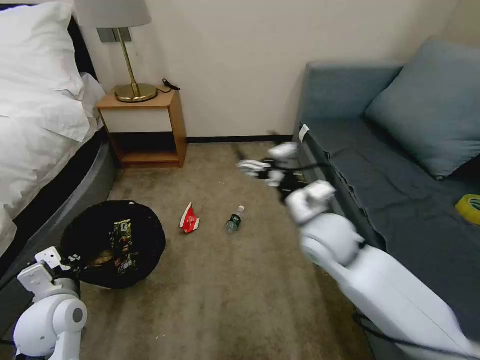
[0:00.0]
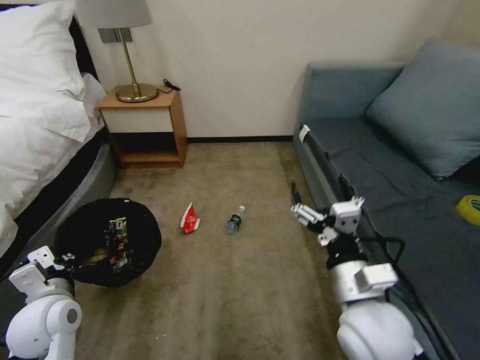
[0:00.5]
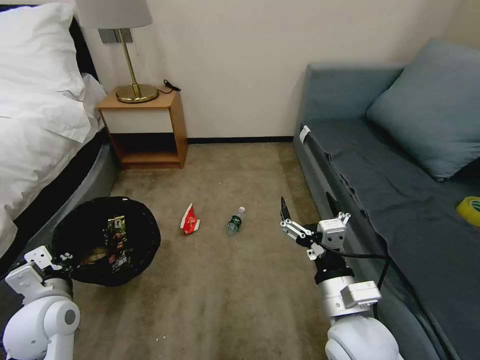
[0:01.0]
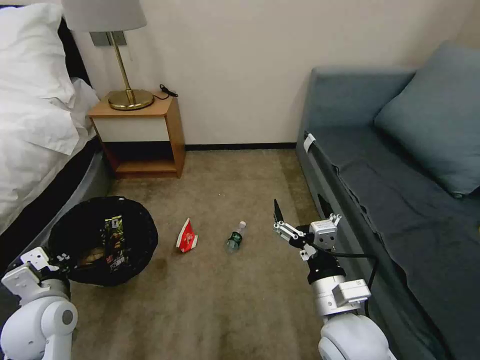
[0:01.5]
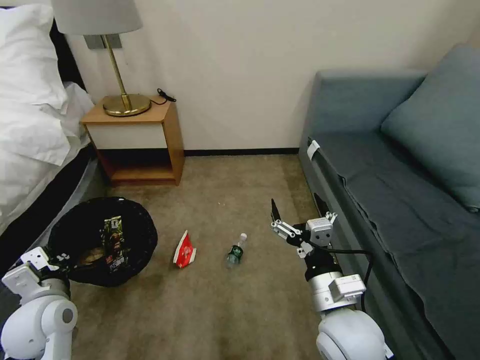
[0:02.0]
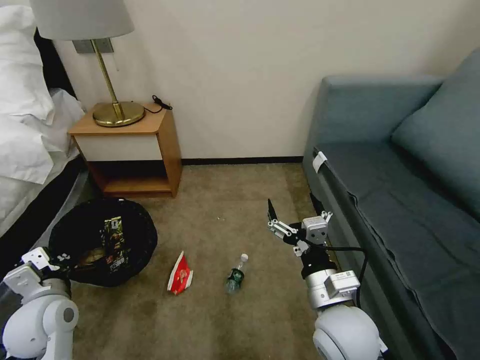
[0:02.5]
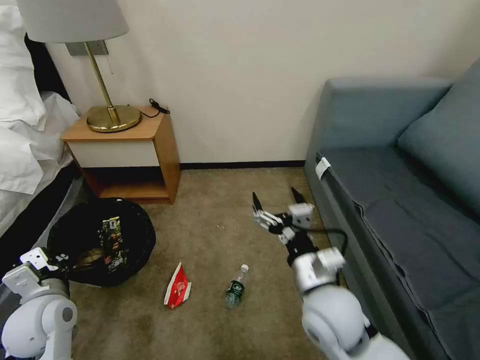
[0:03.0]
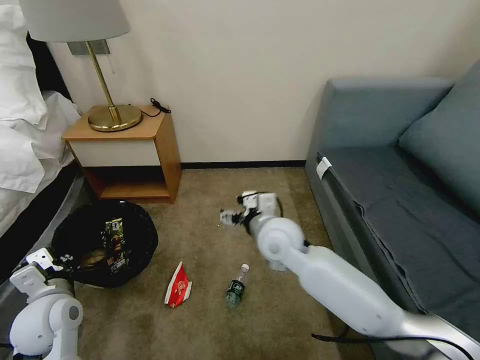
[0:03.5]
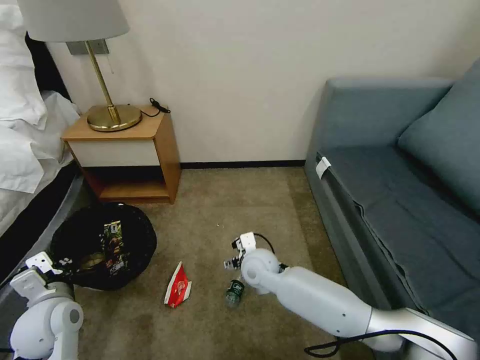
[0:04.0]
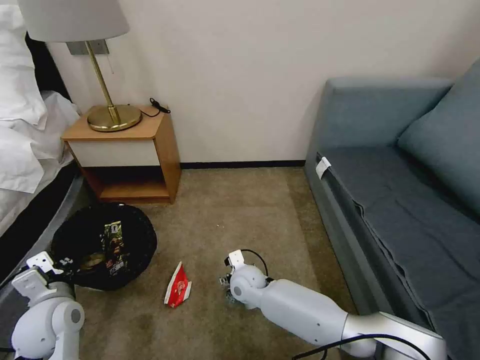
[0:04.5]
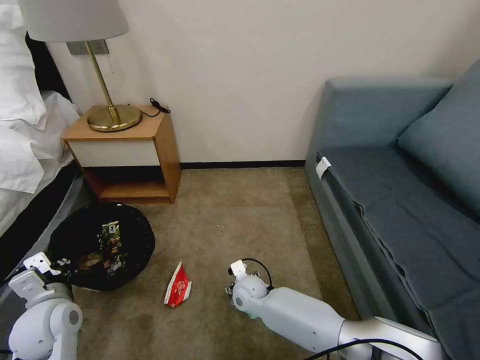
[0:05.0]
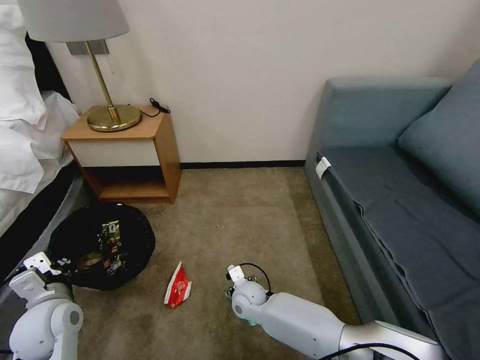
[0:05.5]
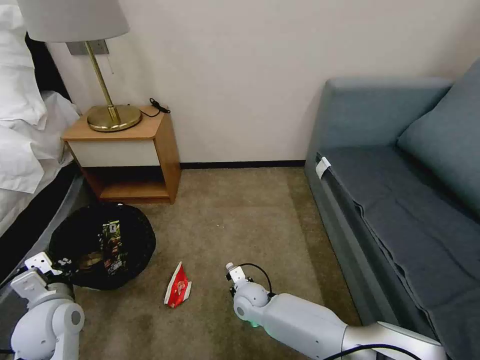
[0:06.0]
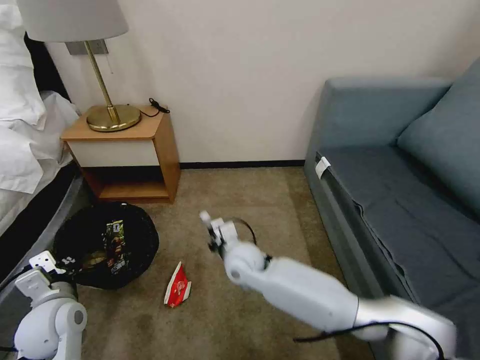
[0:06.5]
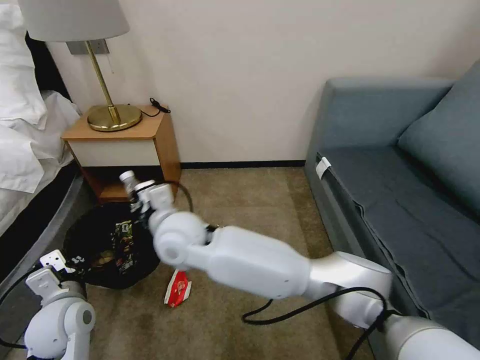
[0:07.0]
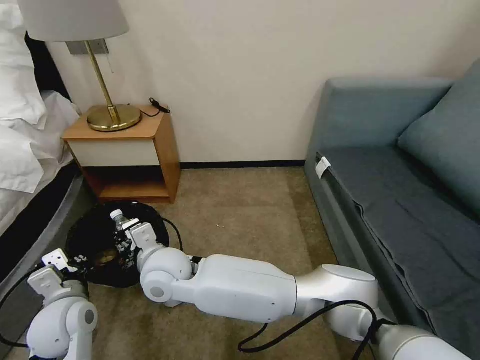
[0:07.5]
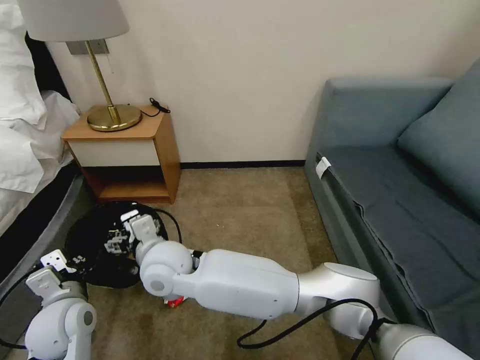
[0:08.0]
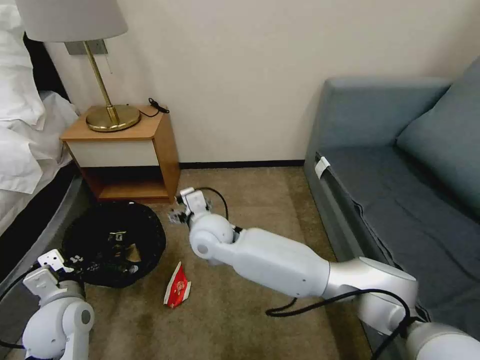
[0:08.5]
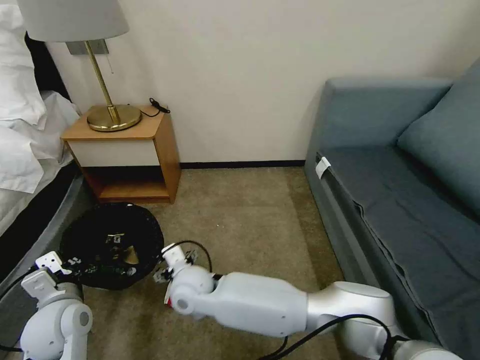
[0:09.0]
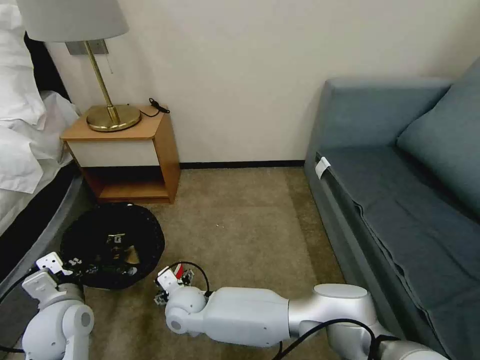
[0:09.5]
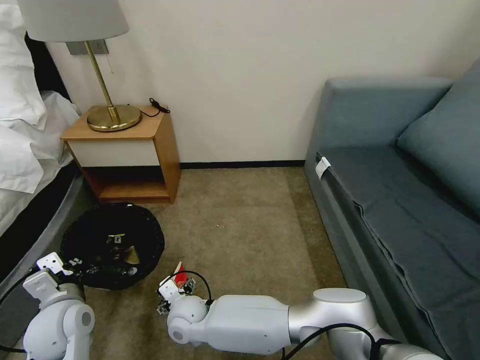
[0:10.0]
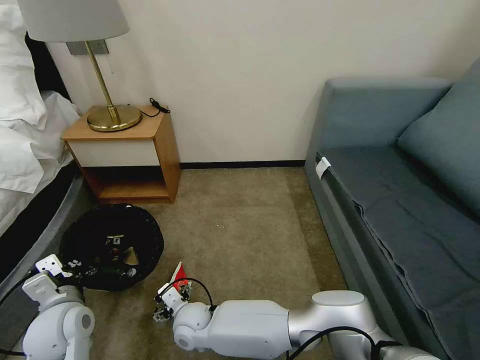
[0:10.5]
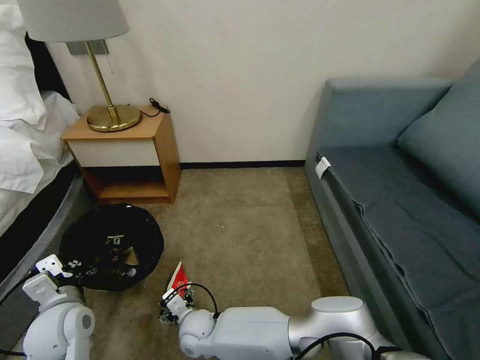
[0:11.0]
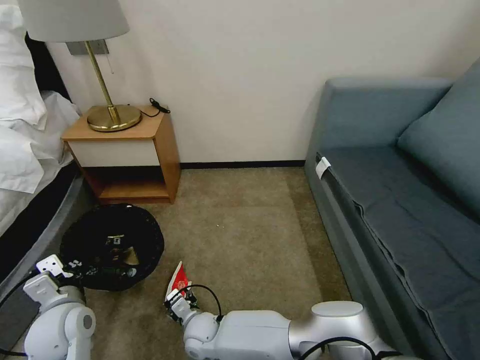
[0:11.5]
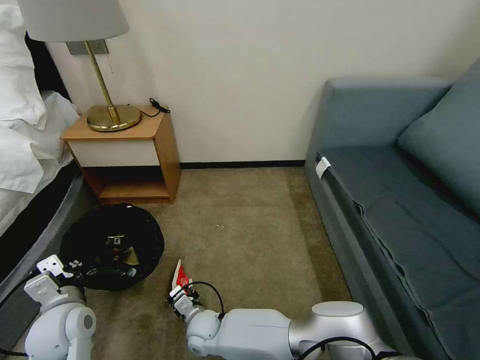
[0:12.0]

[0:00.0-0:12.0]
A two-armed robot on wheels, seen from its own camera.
Task of the whole recording: Pick up the trash bin, then pick up the garbage on the floor and place it into the trash bin.
0:00.0 to 0:02.0: The right gripper shifts approximately 15 cm backward and downward.
0:02.0 to 0:04.0: The right gripper is displaced forward, to the left and downward by about 25 cm.
0:04.0 to 0:06.0: The right gripper goes approximately 15 cm downward, and closes.
0:06.0 to 0:08.0: The right gripper moves upward and to the left, approximately 30 cm, and opens its fingers.
0:08.0 to 0:10.0: The right gripper shifts approximately 20 cm downward.
0:10.0 to 0:12.0: The right gripper heads downward, covering roughly 10 cm, and closes up.

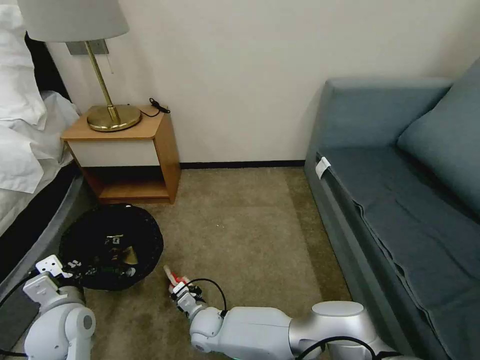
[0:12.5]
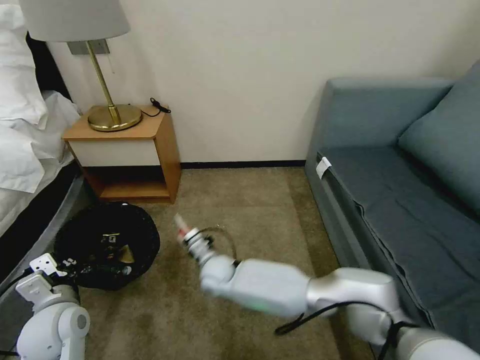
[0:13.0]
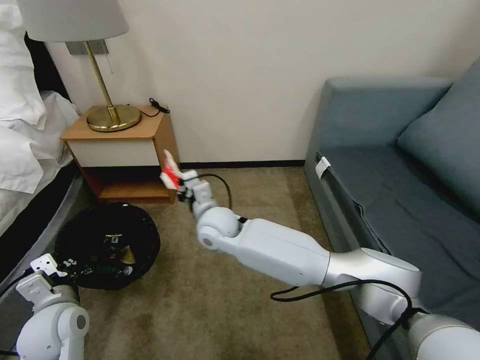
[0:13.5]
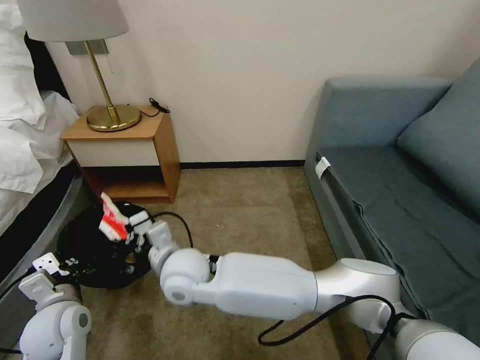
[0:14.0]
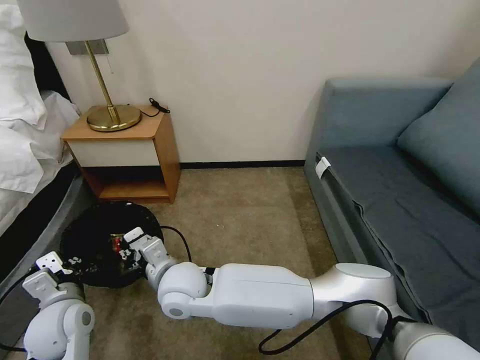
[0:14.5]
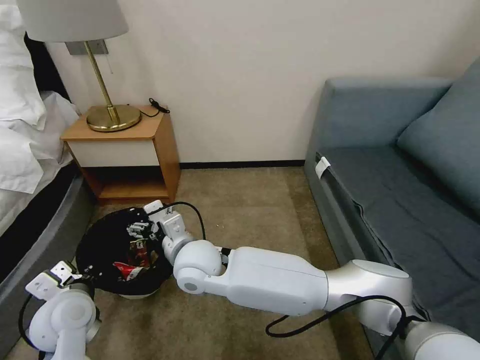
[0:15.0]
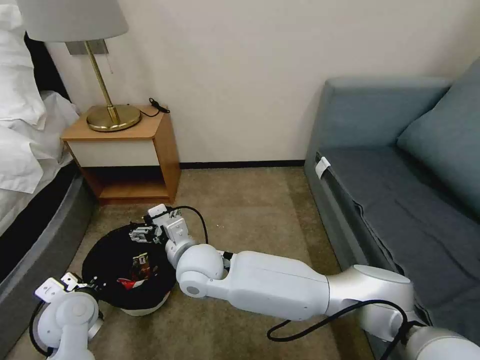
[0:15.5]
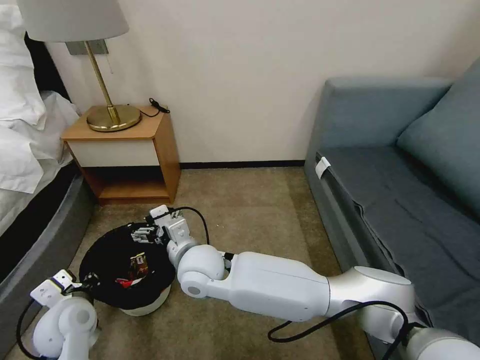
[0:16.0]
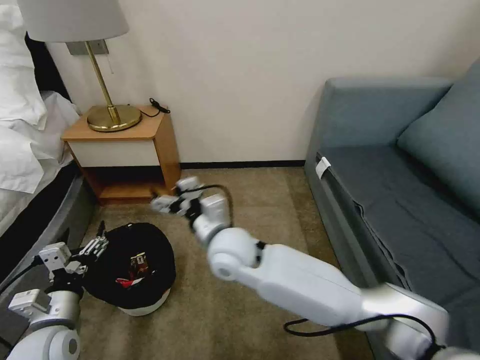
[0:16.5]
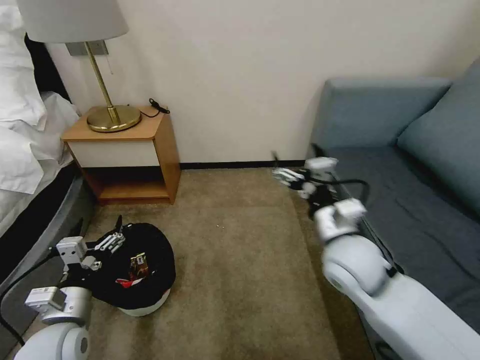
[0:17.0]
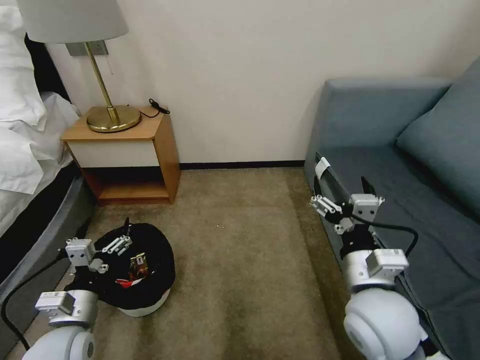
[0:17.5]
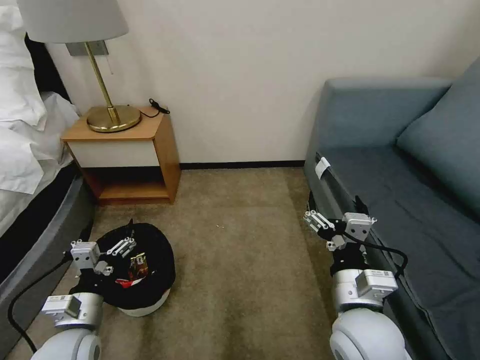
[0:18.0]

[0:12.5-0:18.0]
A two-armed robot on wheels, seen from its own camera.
Task of the whole recording: Pick up the trash bin, then pick up the garbage on the floor and place it into the trash bin.
0:12.5 to 0:14.5: The right gripper heads upward, covering roughly 25 cm.
0:14.5 to 0:16.0: The right gripper shifts by approximately 5 cm, and opens, while the left gripper opens up.
0:16.0 to 0:18.0: The right gripper shifts roughly 30 cm to the right and backward, while the left gripper shifts roughly 5 cm backward, and opens its fingers.

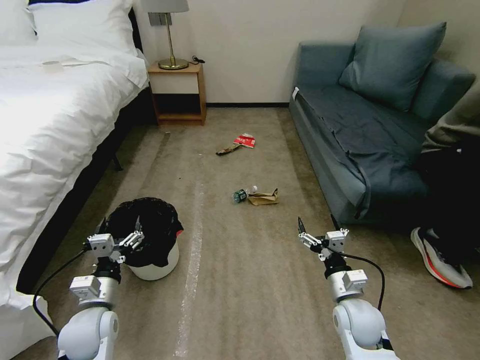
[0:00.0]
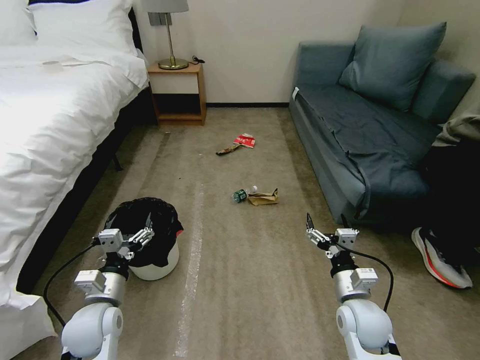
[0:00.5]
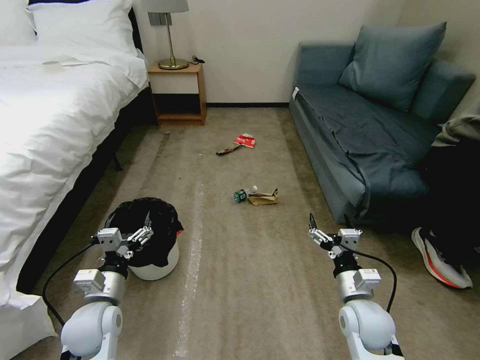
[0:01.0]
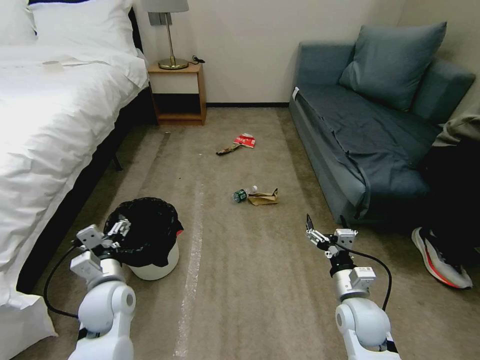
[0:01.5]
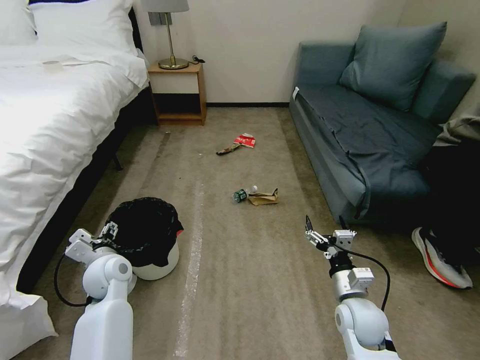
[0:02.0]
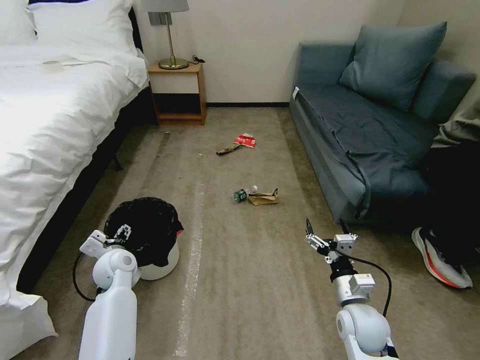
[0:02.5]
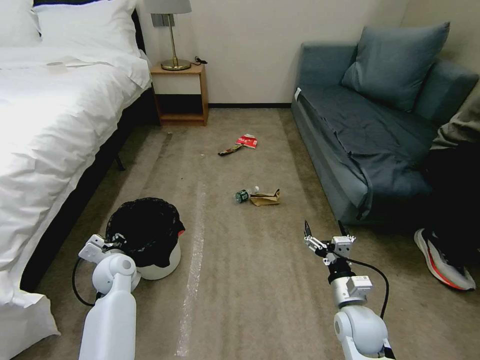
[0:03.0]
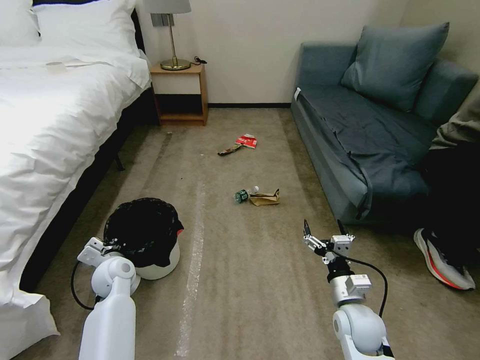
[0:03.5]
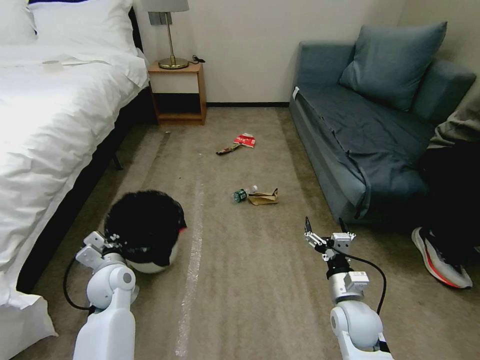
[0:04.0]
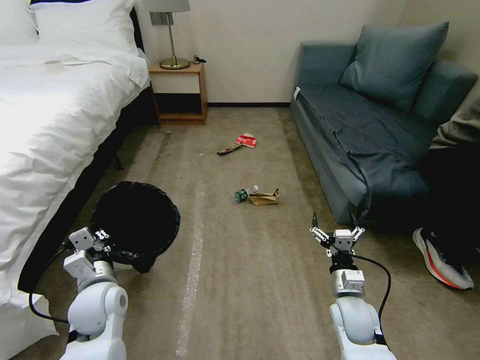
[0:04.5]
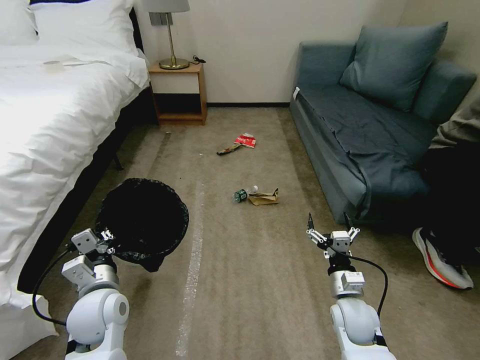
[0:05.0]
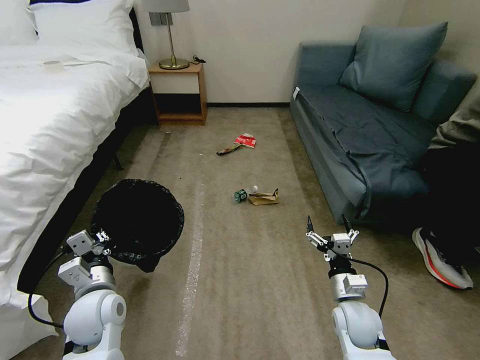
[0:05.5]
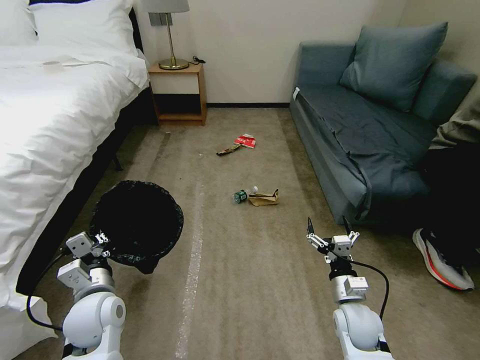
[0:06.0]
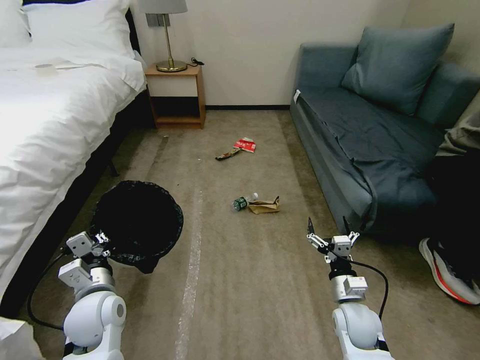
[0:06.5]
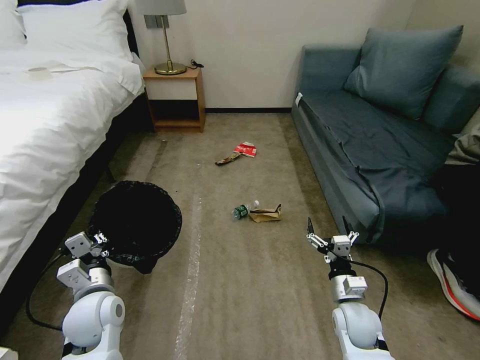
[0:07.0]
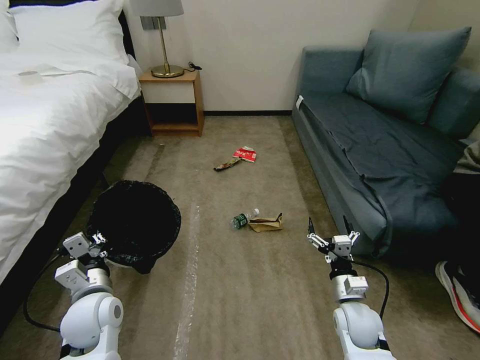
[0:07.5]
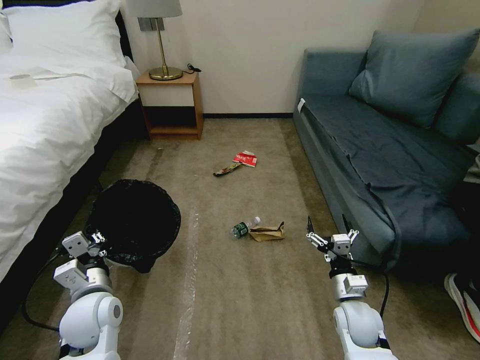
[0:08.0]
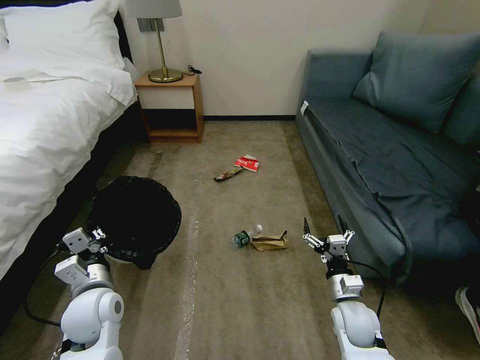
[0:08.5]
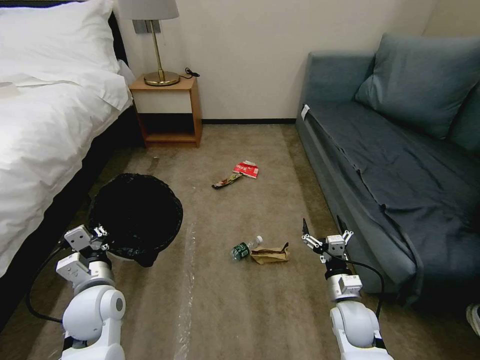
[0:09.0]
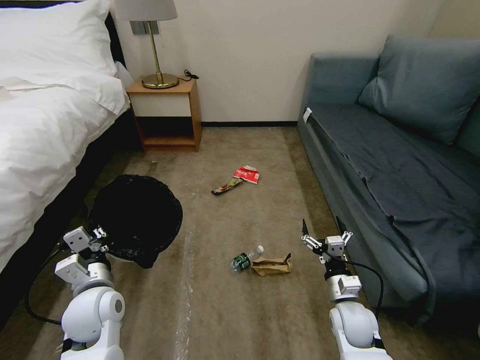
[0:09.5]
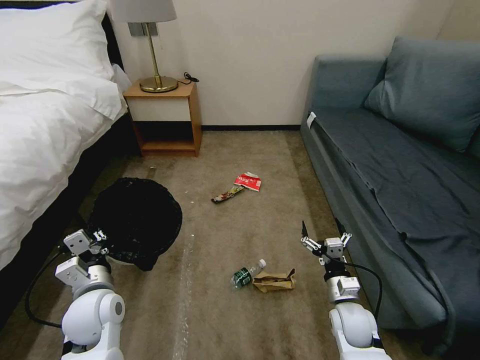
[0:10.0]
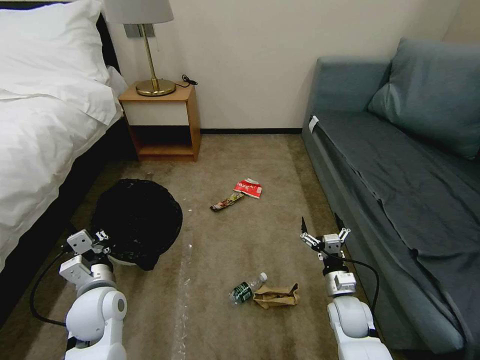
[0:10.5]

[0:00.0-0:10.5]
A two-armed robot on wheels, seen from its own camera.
Task of the whole recording: Pick up the trash bin, then pick up the garbage on the floor and place it into the trash bin.
0:02.0 to 0:04.0: The left gripper closes its fingers.
0:04.0 to 0:06.5: The left gripper shifts roughly 10 cm backward.
